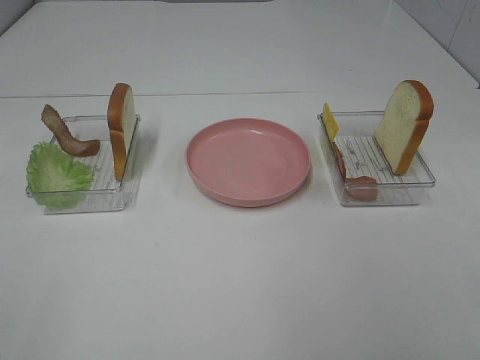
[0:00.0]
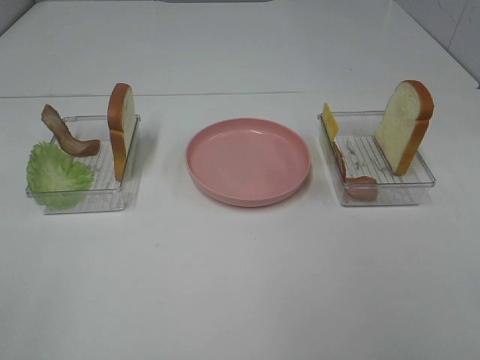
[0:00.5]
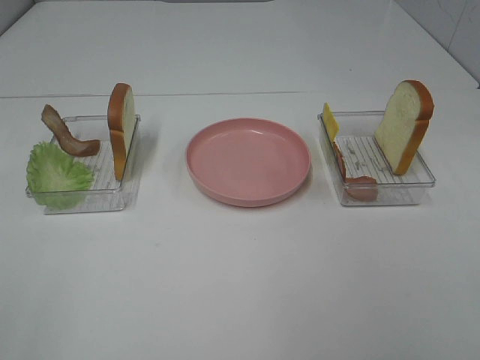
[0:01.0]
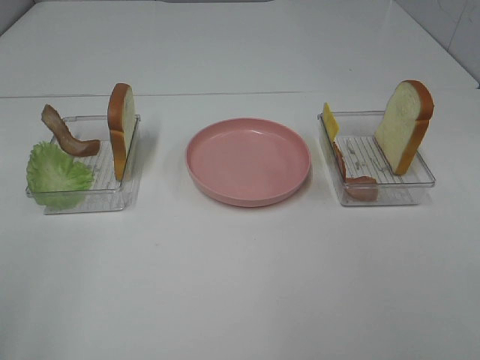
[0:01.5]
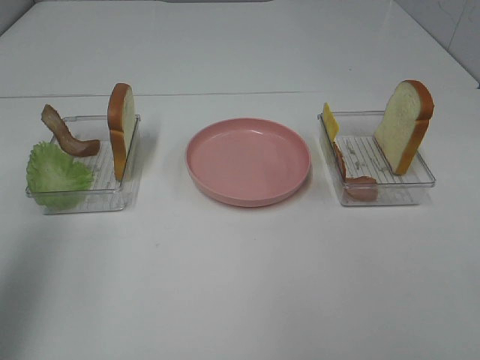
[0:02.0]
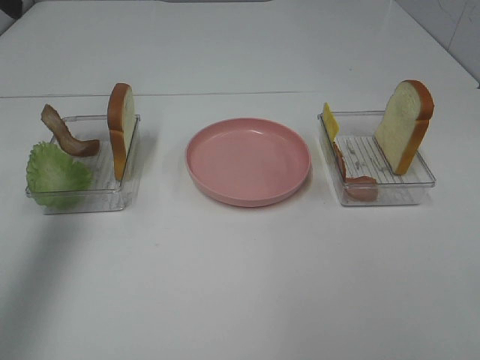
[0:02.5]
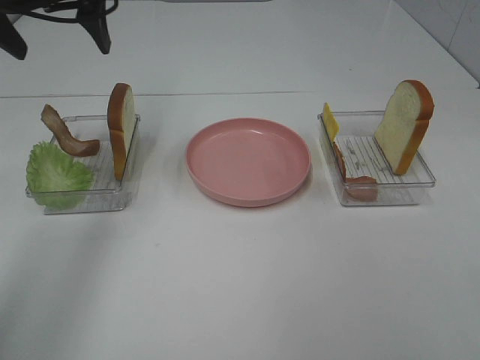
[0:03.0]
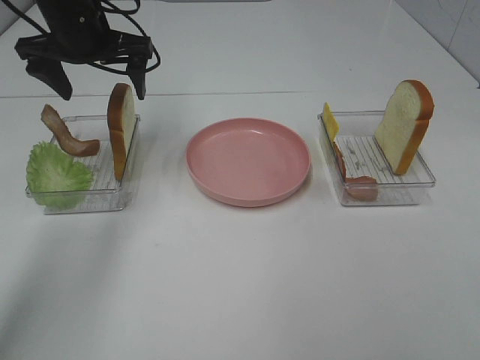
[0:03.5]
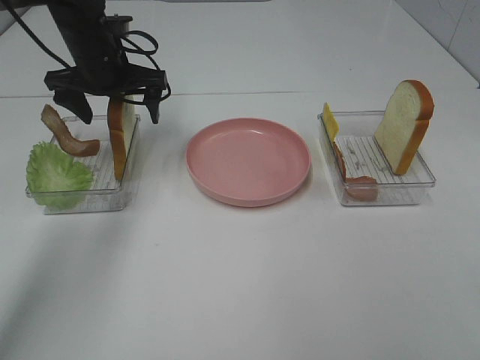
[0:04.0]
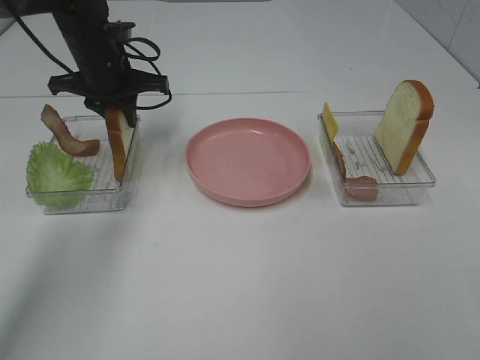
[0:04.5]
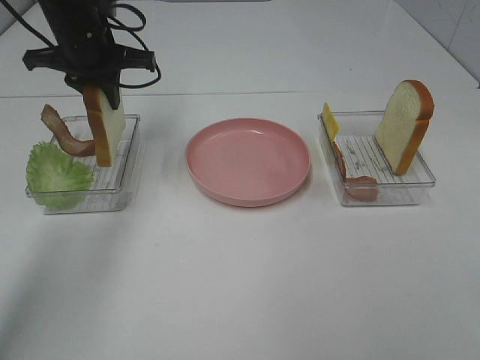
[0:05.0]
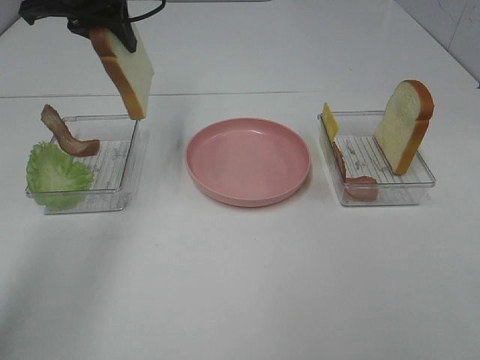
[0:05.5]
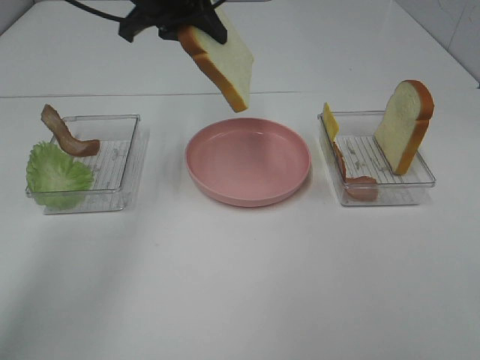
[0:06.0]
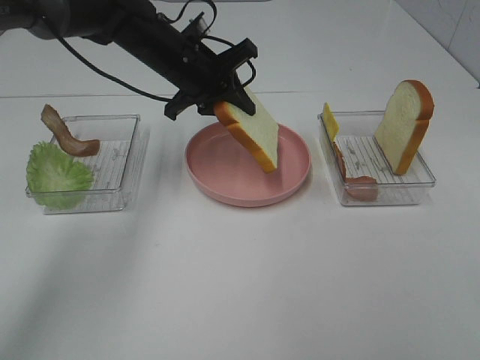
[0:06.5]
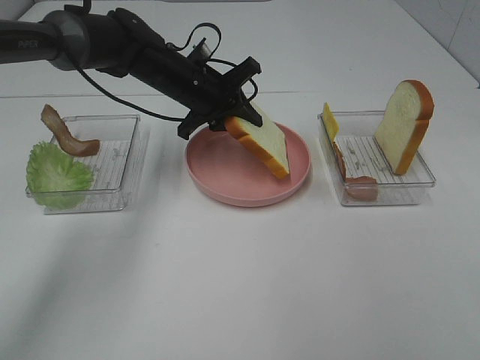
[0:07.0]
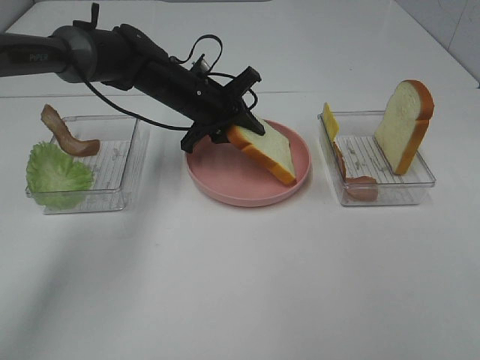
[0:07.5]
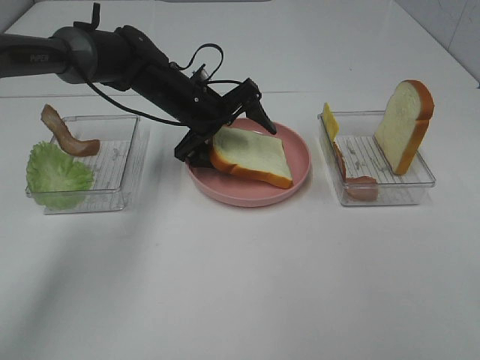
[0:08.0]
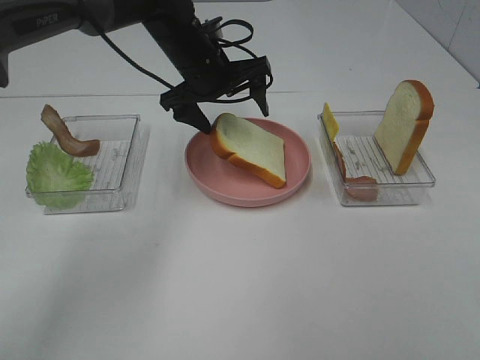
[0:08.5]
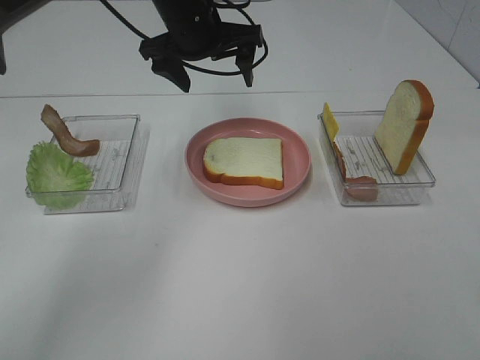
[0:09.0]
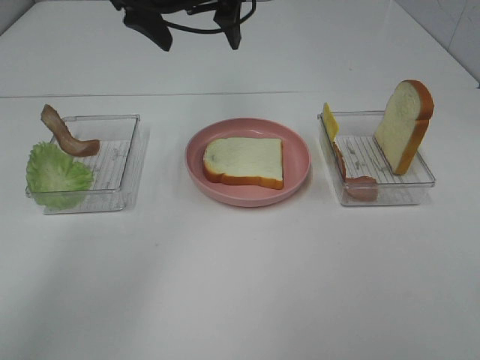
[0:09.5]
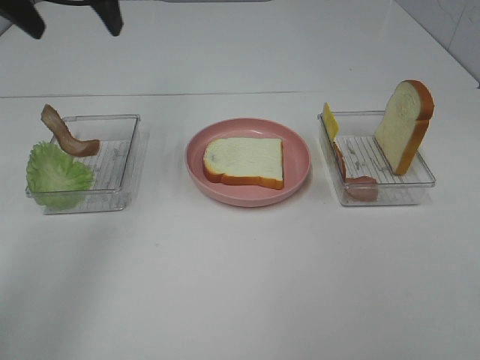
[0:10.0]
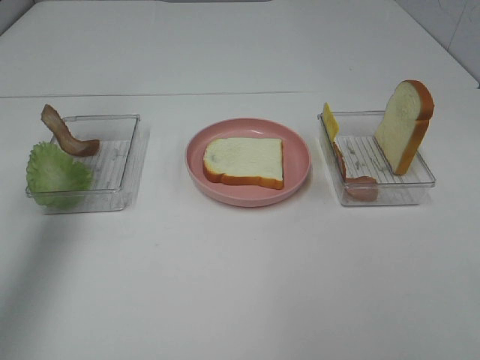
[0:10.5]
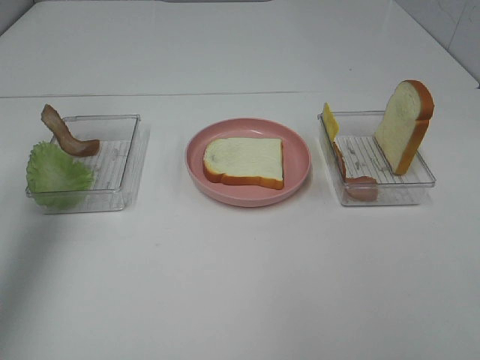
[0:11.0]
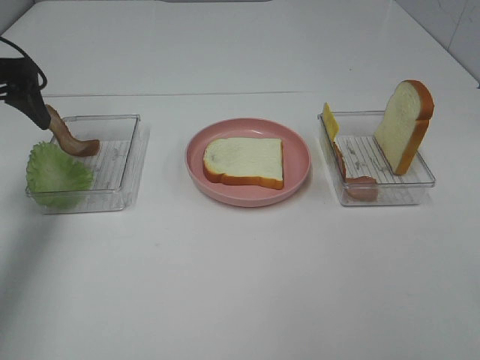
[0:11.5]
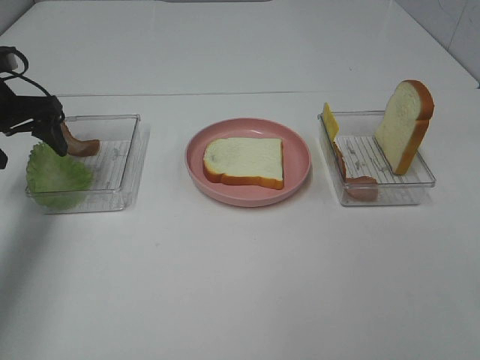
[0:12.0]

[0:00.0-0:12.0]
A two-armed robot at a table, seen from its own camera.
Task of the whole recording: Make sandwiches.
Step, 0:00.0 to 0:04.5: Left hand:grab the bread slice.
Step, 0:05.0 to 0:08.5: Left hand:place the bread slice on the plate.
0:00.0 to 0:02.0: The left gripper moves forward and upward, roughly 20 cm.
0:02.0 to 0:04.0: The left gripper heads forward, downward and to the right, covering about 35 cm.
0:04.0 to 0:06.0: The left gripper travels upward and to the right by approximately 10 cm, and closes.
0:06.0 to 0:08.0: The left gripper travels downward by about 15 cm, and opens its fingers.
0:08.0 to 0:10.0: The left gripper shifts some 30 cm upward and to the left.
0:10.0 to 0:12.0: The left gripper goes some 20 cm downward and to the left.

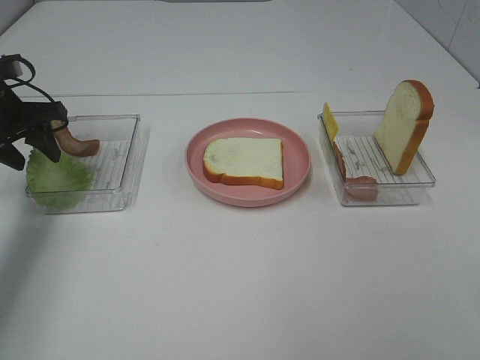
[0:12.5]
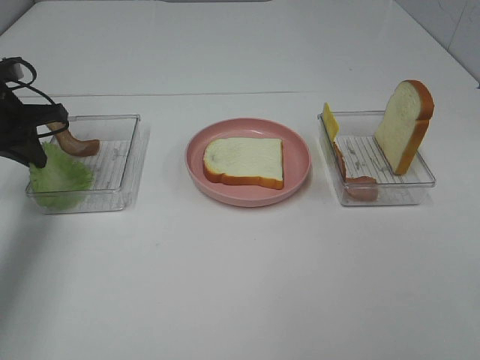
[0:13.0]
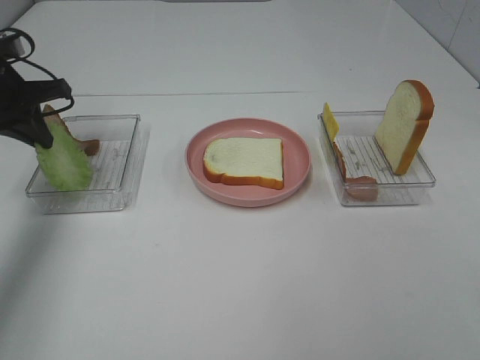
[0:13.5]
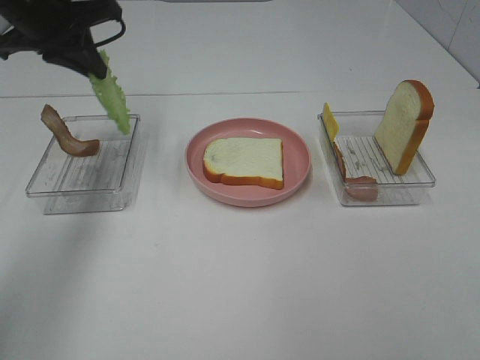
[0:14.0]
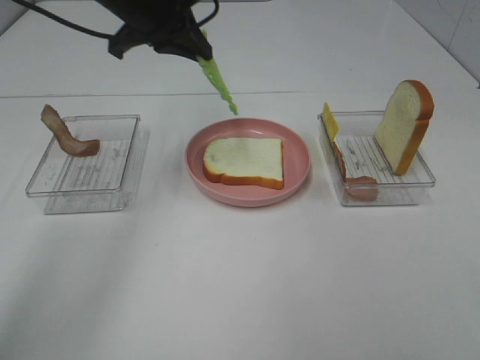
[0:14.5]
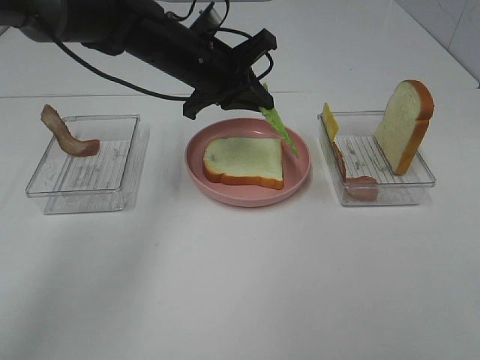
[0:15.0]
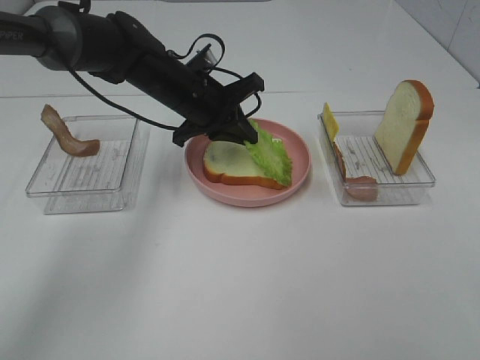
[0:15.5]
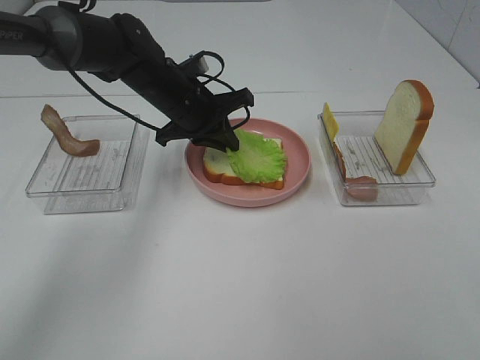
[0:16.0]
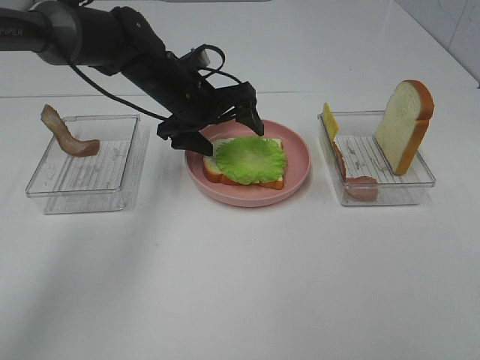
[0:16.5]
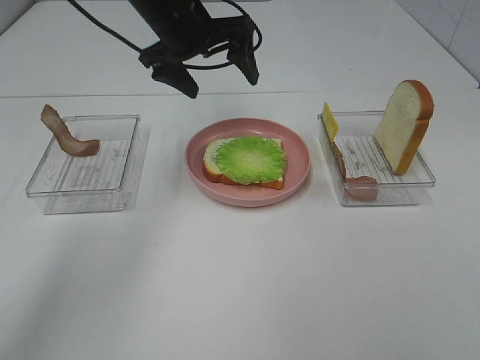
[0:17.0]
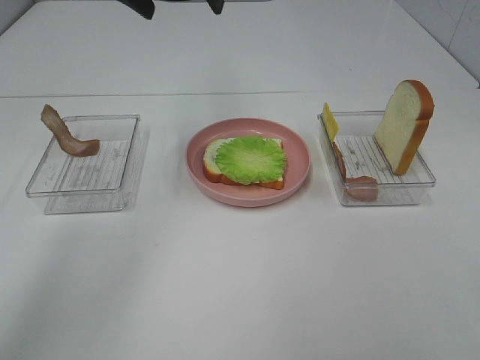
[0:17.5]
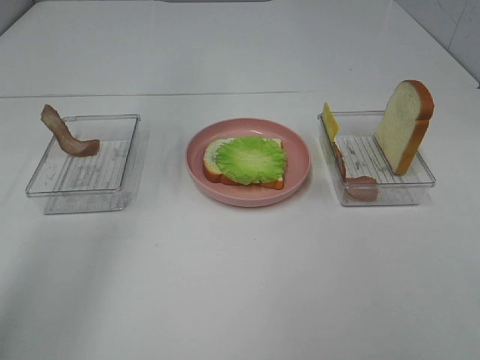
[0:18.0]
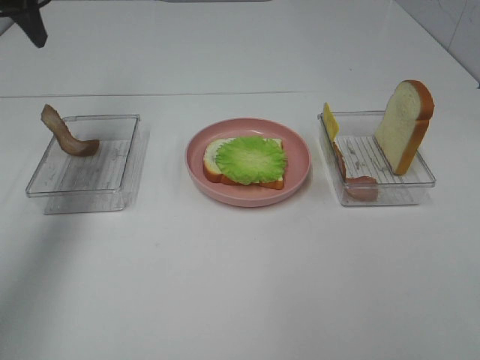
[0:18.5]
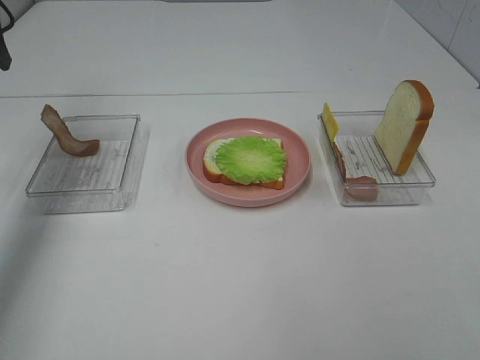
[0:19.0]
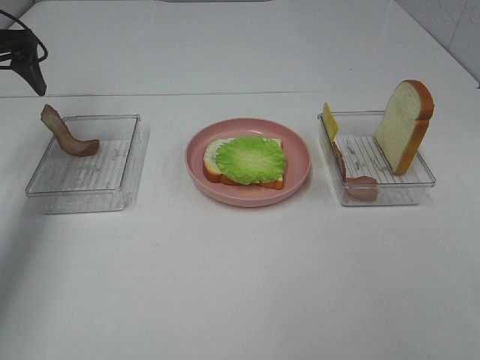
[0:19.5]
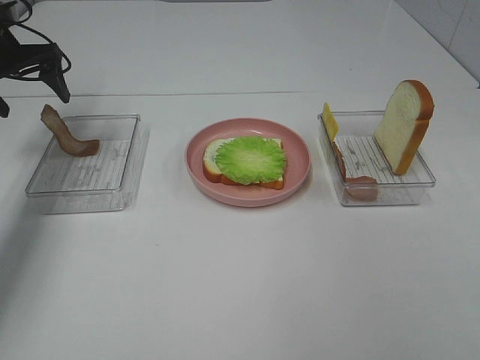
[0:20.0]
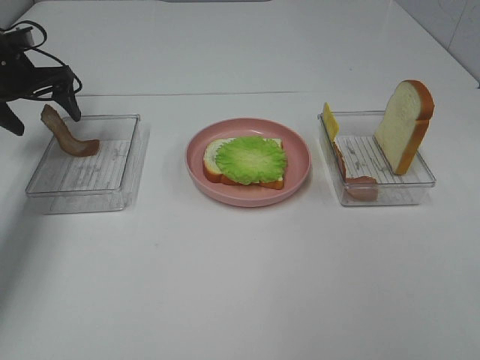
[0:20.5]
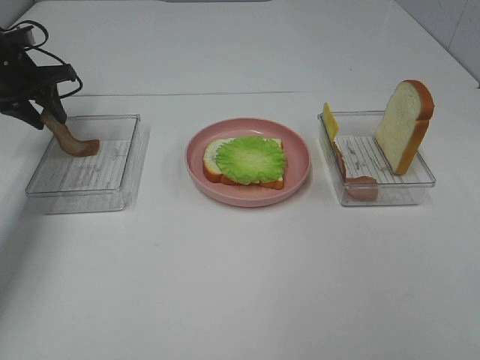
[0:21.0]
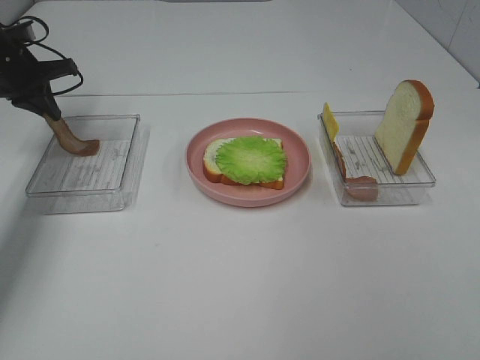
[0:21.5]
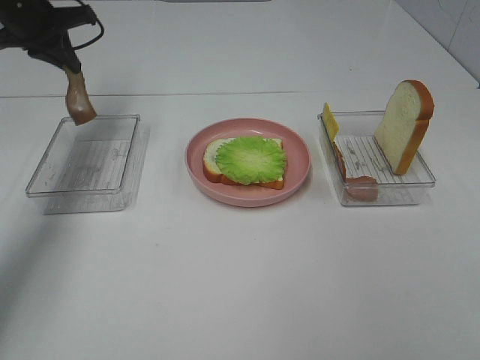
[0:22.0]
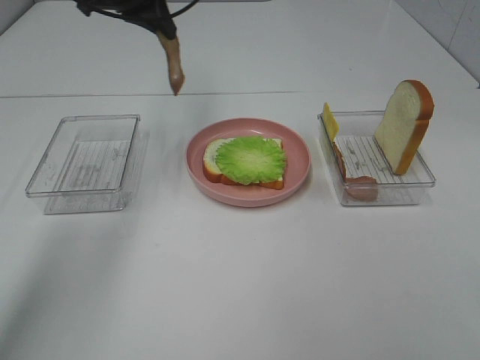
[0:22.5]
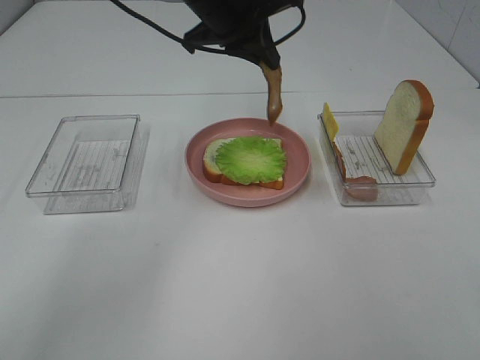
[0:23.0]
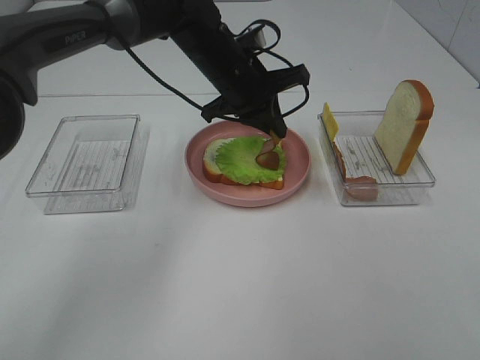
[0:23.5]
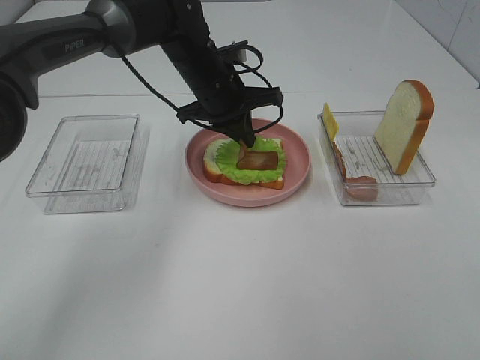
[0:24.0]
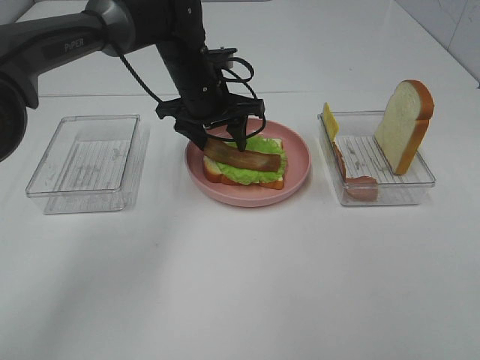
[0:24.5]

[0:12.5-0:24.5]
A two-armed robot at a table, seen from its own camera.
Task of the whole recording: Make sandwiches.
Step, 0:13.5 to 0:16.0: Left hand:place the lettuce slice on the bread slice.
Step, 0:16.5 to 0:21.5: Left hand:grab the bacon.
0:12.5 to 0:14.5: The left gripper shifts approximately 25 cm to the right and upward, and closes.
0:14.5 to 0:16.5: The left gripper moves downward, roughly 15 cm, and opens its fingers.
0:16.5 to 0:18.5: The left gripper travels to the left and upward by roughly 30 cm.
0:18.5 to 0:20.5: The left gripper is displaced downward and forward by roughly 20 cm.
0:20.5 to 0:22.5: The left gripper moves to the right and upward, approximately 25 cm, and closes up.
0:22.5 to 0:24.5: The left gripper is displaced downward and to the right by approximately 15 cm, and opens.

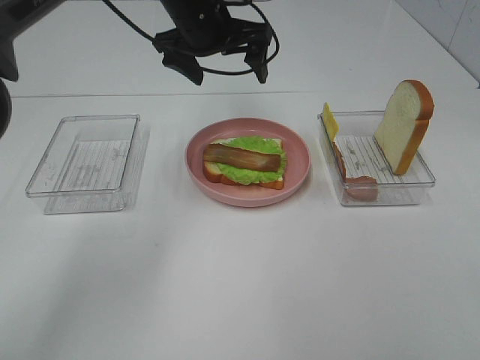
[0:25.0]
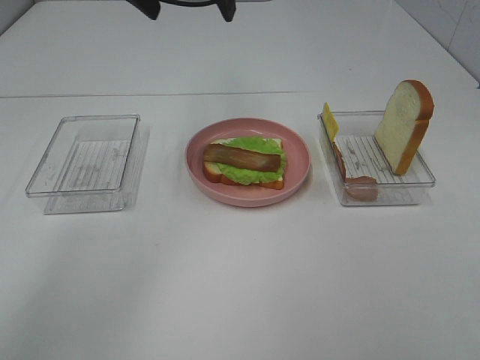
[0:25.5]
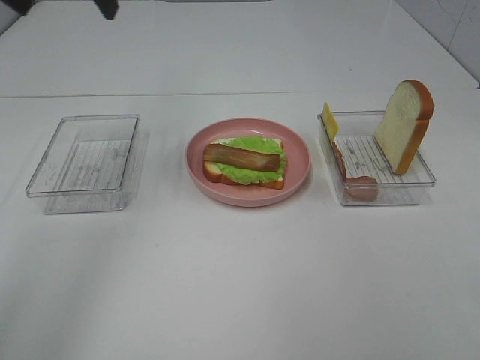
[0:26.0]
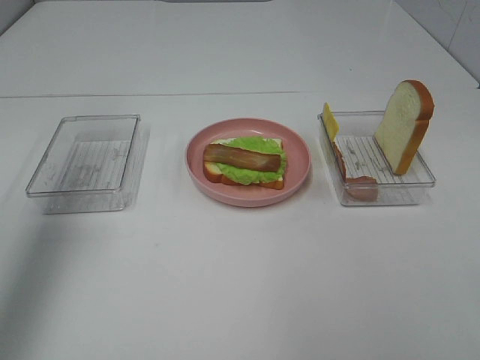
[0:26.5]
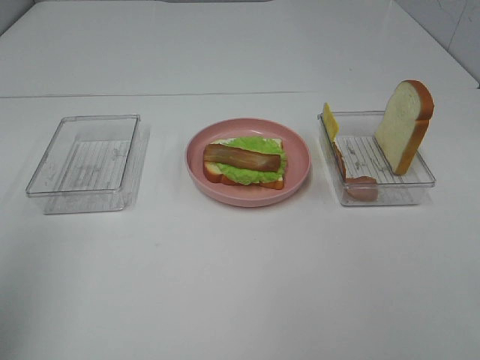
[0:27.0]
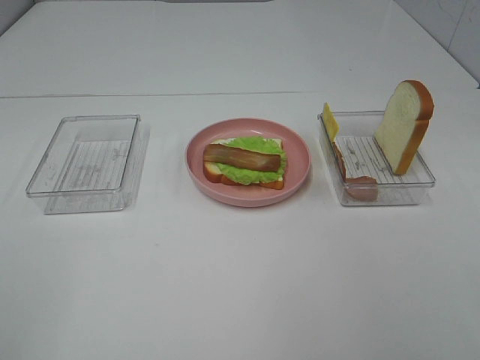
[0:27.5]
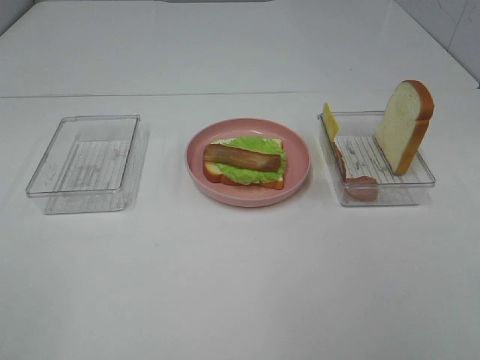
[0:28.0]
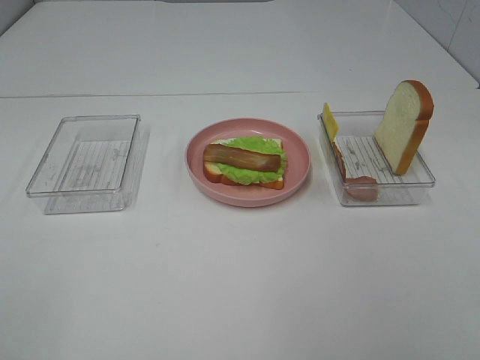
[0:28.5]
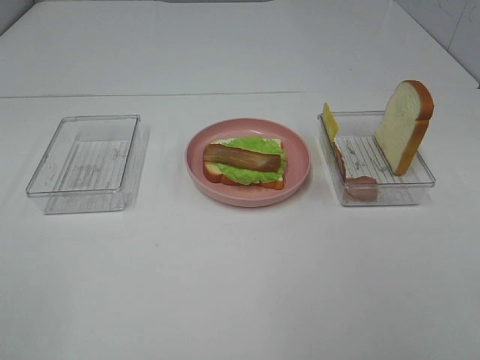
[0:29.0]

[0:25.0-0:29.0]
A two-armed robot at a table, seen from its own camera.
Task of the whole recording: Make sandwiches.
0:25.0 to 0:27.0: The left gripper goes about 40 cm backward and to the left.
0:27.0 to 0:29.0: The left gripper shifts roughly 15 cm backward and downward.
